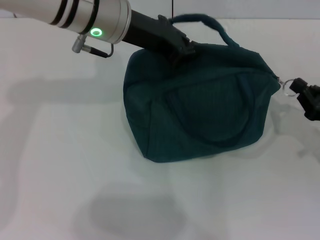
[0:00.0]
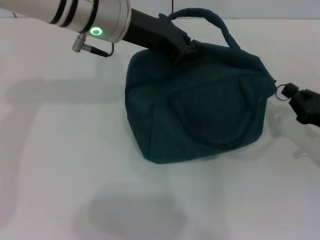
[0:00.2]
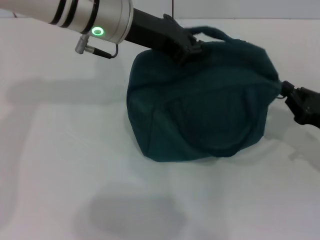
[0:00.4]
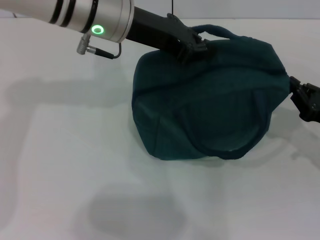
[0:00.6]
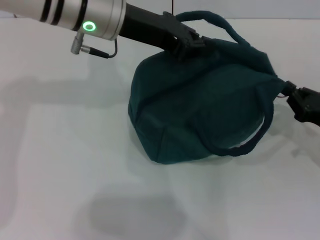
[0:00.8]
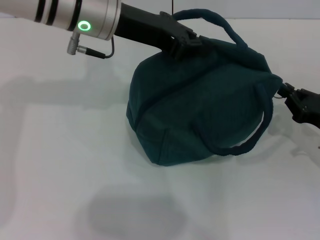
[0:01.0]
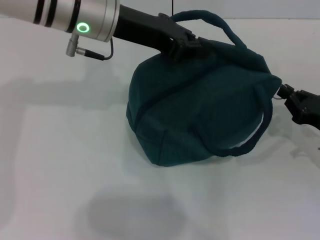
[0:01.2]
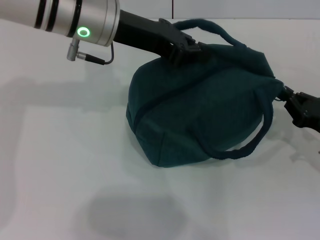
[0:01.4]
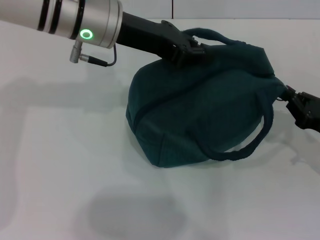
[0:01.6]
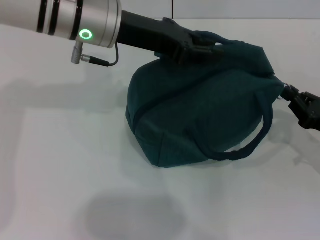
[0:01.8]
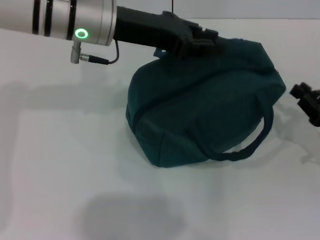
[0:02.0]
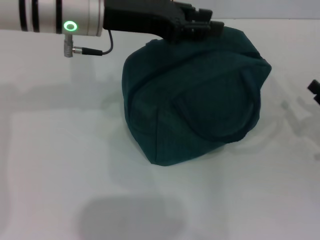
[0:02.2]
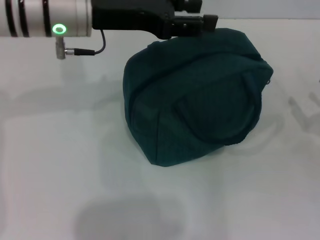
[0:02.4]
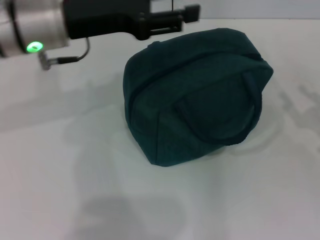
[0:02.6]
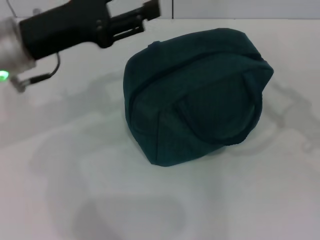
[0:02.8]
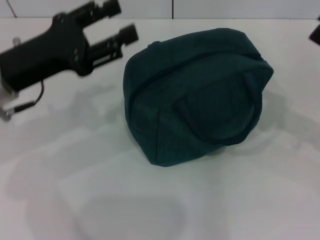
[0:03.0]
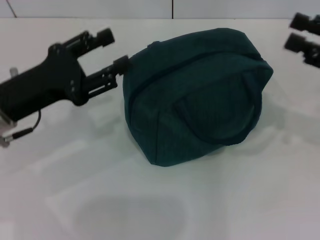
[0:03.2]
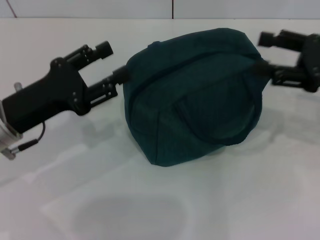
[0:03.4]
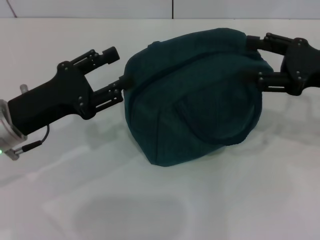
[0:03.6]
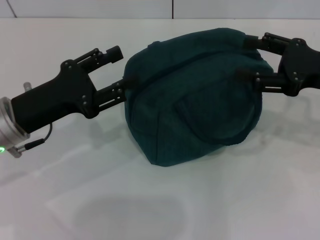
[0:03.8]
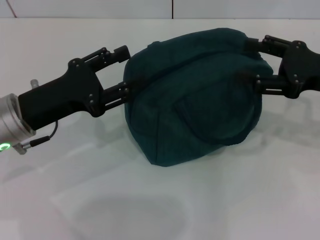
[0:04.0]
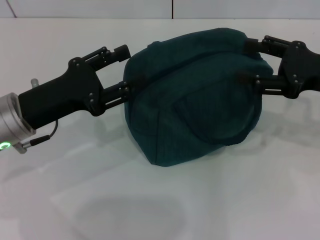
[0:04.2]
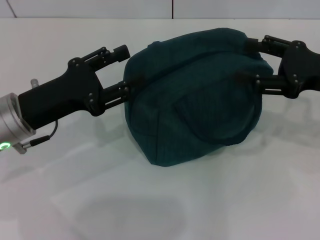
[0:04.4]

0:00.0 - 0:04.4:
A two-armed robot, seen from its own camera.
0:00.0 - 0:01.4: The grippers move only a little.
0:01.4 - 0:03.0: The left gripper goes about 15 cm to the left, backward and downward, and opens up. Meanwhile the right gripper is displaced upward by about 10 cm, and opens its fingers.
0:03.0 - 0:04.4: The right gripper shifts approximately 5 cm to the left. The left gripper changes place by some 5 cm.
